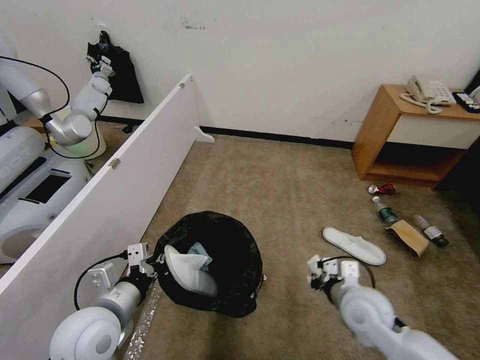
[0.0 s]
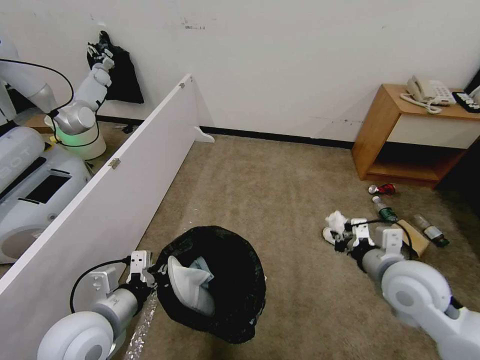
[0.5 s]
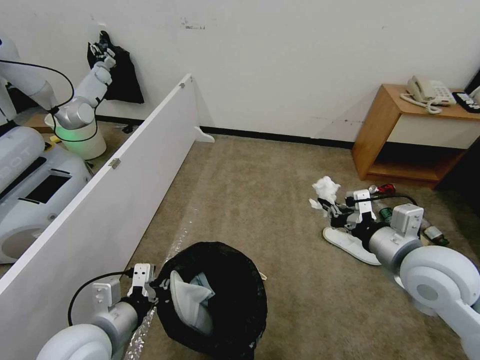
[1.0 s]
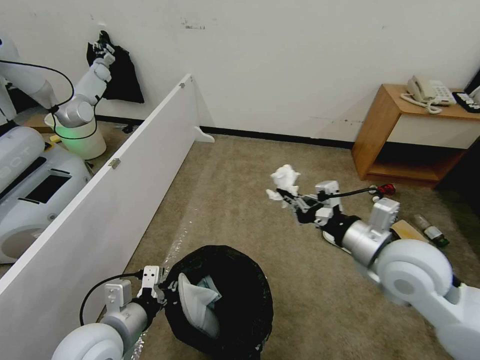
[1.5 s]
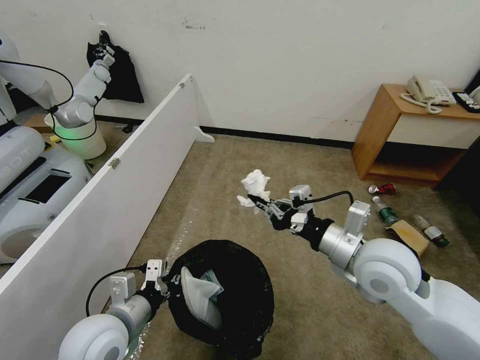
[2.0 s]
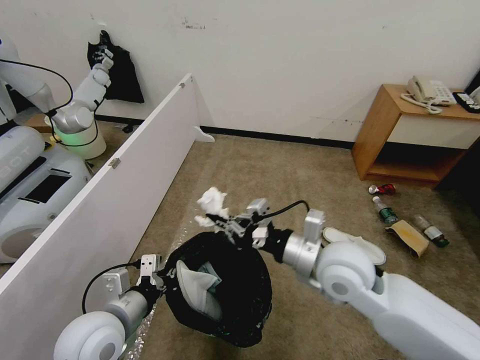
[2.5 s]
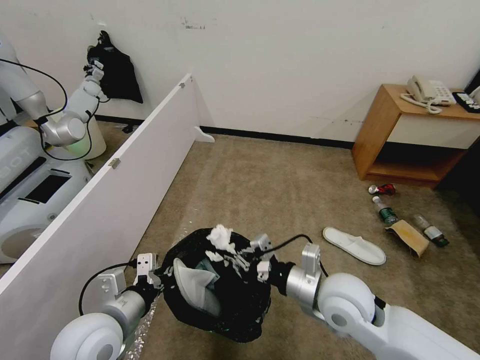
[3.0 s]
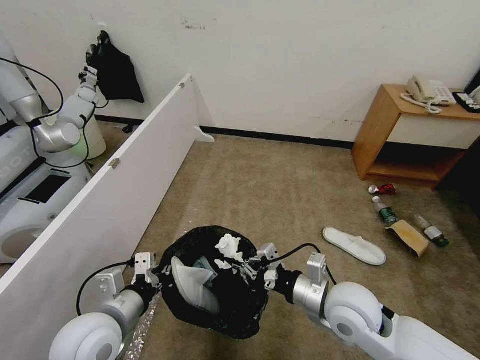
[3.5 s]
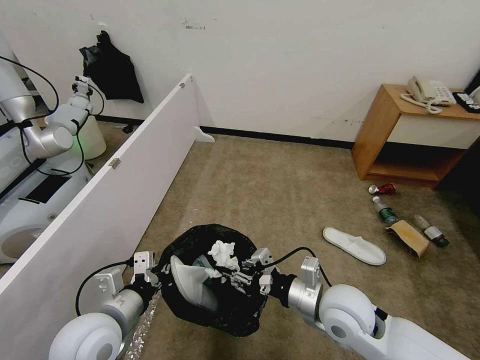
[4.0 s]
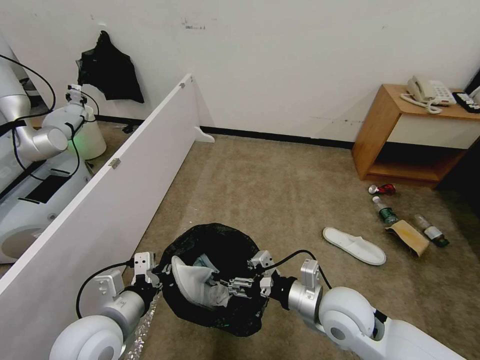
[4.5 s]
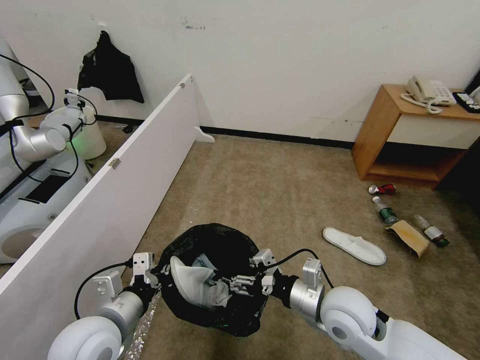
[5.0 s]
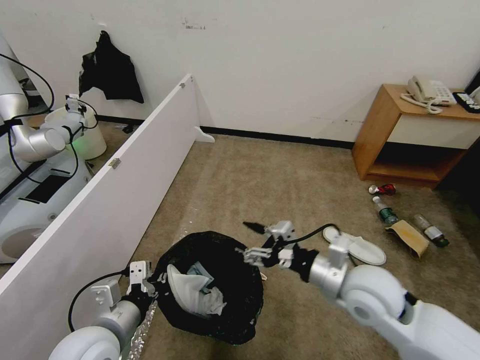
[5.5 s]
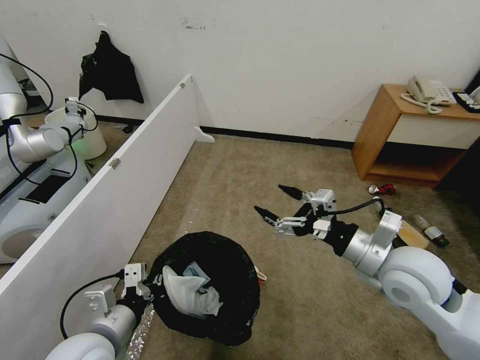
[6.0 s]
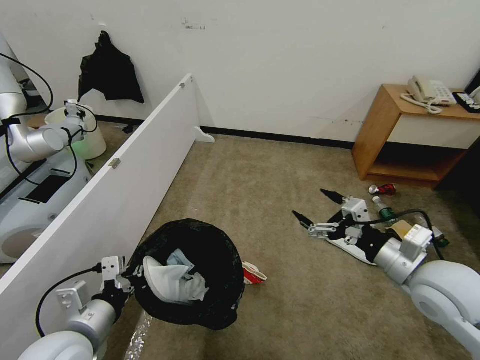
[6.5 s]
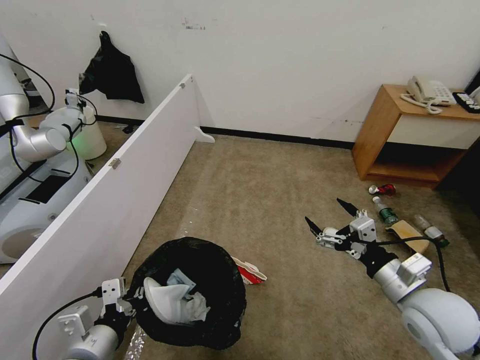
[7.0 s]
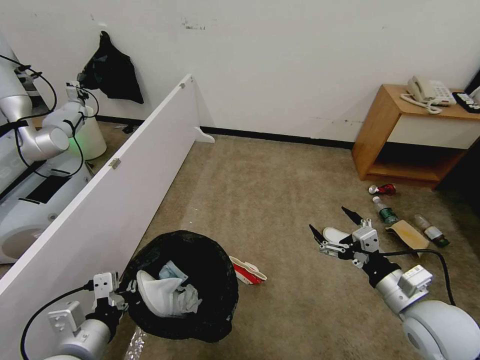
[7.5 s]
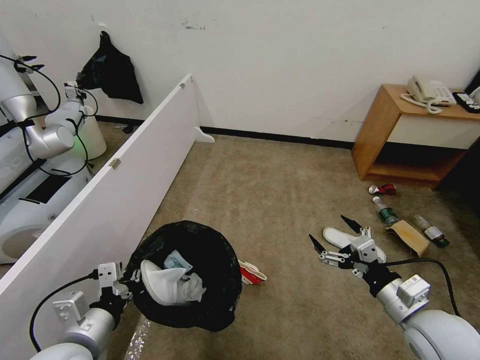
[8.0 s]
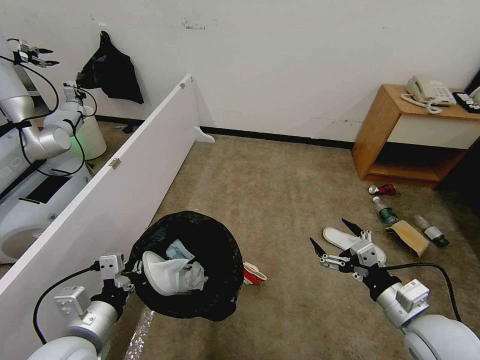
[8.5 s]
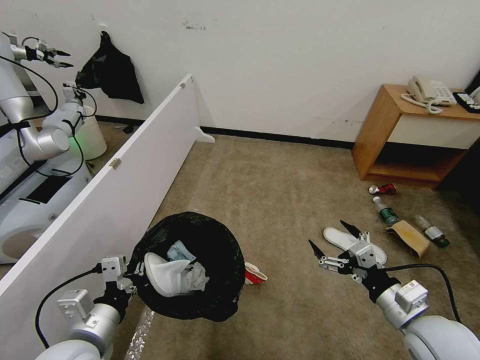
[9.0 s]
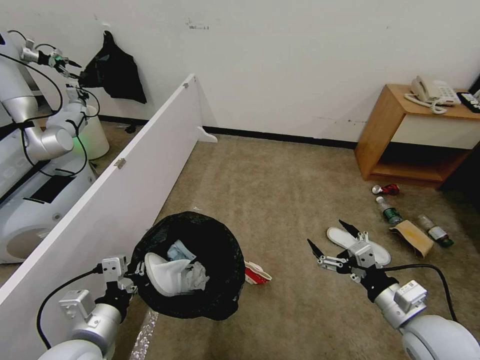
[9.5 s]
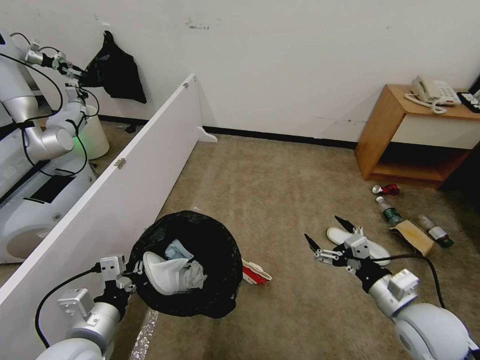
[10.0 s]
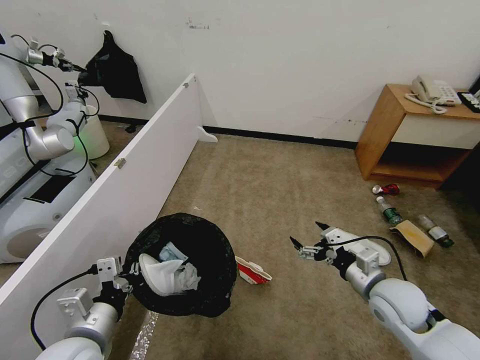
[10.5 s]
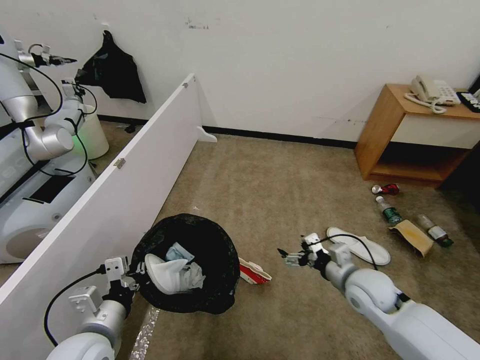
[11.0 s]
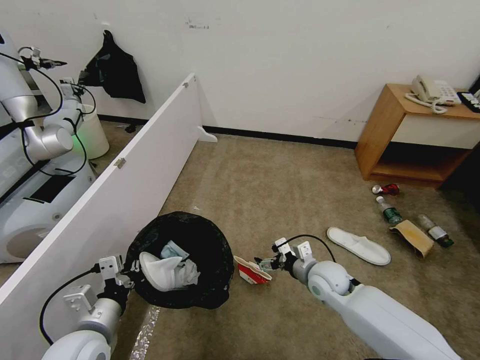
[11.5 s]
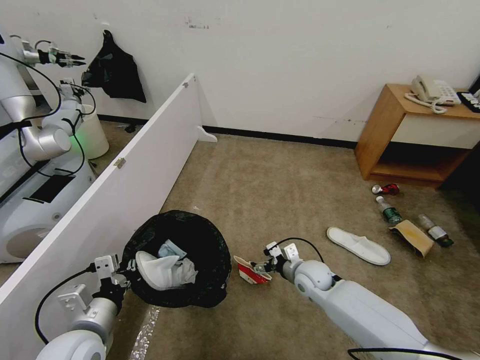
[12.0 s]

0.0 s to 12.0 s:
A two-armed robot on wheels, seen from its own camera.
Task of the whole recording: Pick up the trash bin, then pick up the garbage from the floor and place it into the trash bin.
0.0 to 2.0 s: The right gripper shifts approximately 15 cm upward.
2.0 to 4.0 s: The right gripper moves downward, some 10 cm, and opens up.
4.0 to 6.0 s: The right gripper shifts about 15 cm upward and to the right, and opens up.
6.0 to 8.0 s: The right gripper goes approximately 15 cm downward, backward and to the right.
8.0 to 10.0 s: The grippers make only small movements.
10.0 to 12.0 s: The right gripper shifts roughly 25 cm forward, downward and to the left.

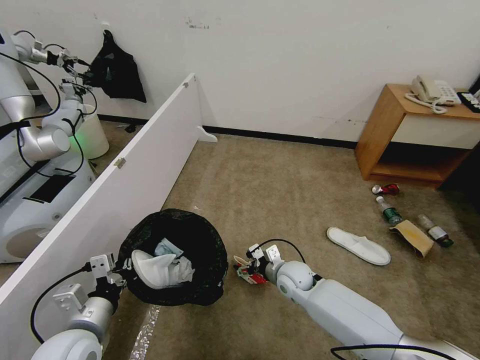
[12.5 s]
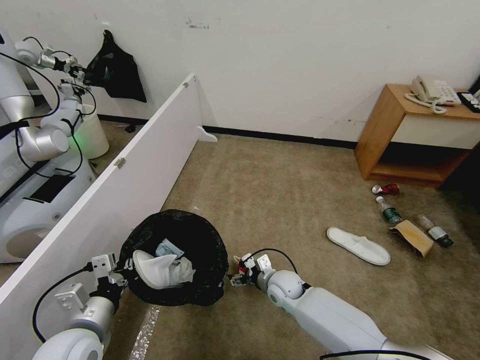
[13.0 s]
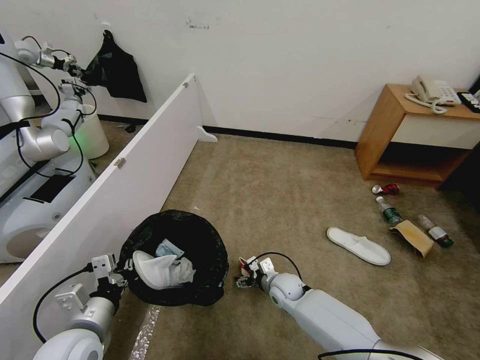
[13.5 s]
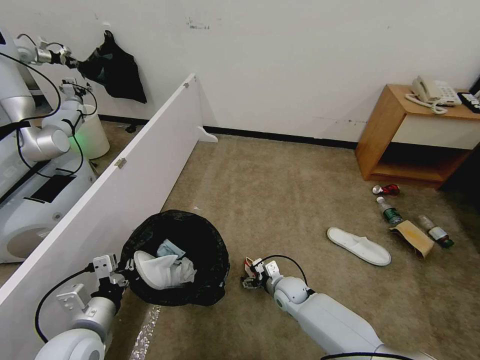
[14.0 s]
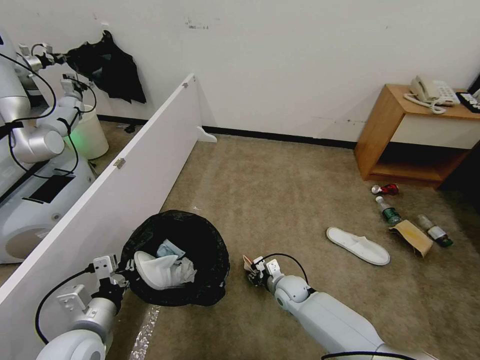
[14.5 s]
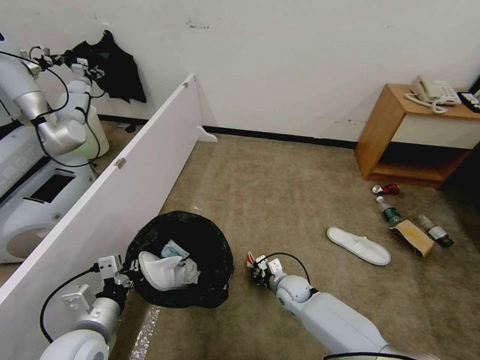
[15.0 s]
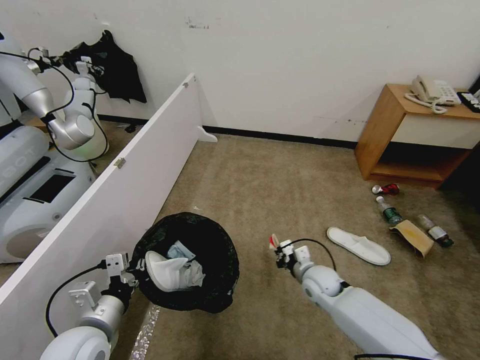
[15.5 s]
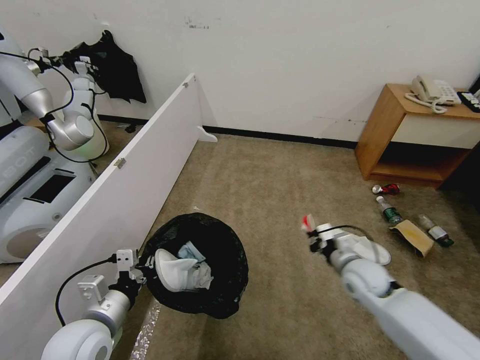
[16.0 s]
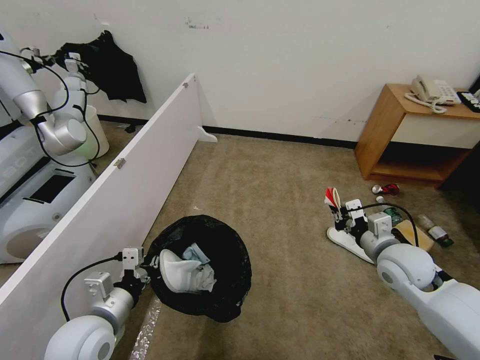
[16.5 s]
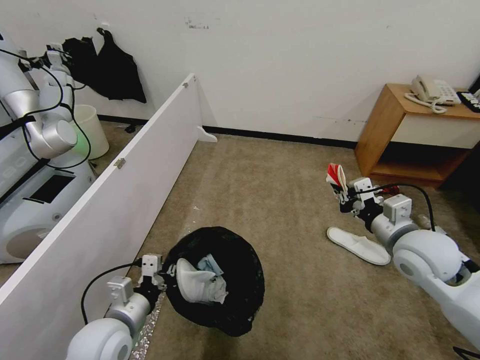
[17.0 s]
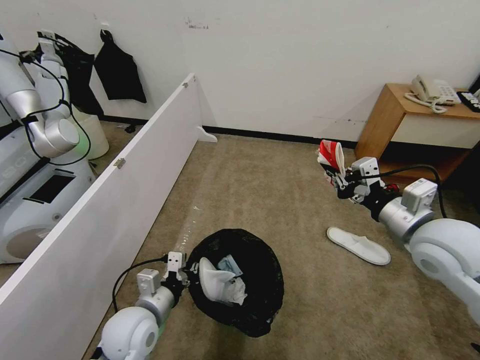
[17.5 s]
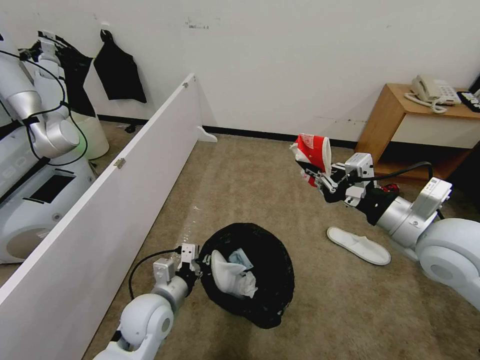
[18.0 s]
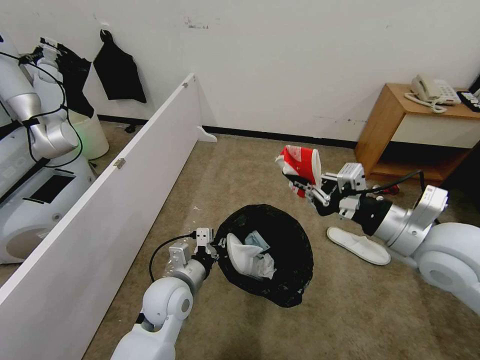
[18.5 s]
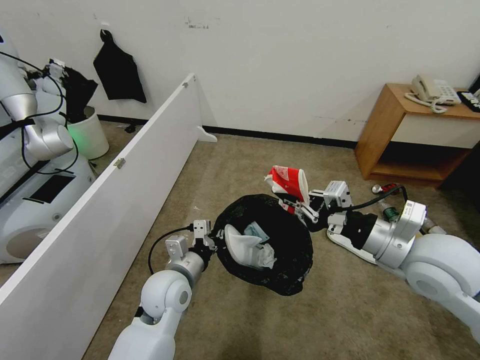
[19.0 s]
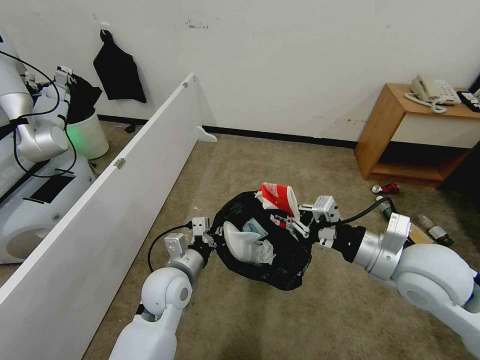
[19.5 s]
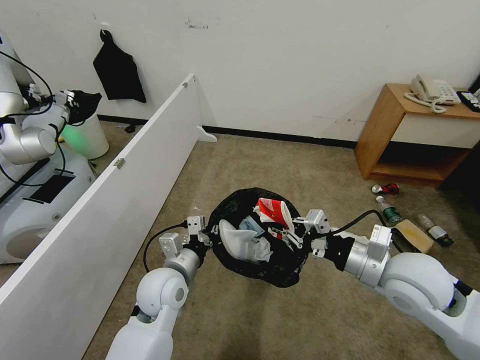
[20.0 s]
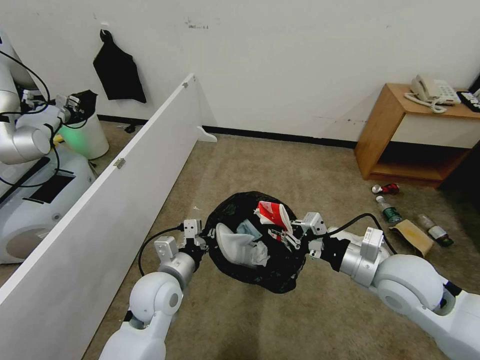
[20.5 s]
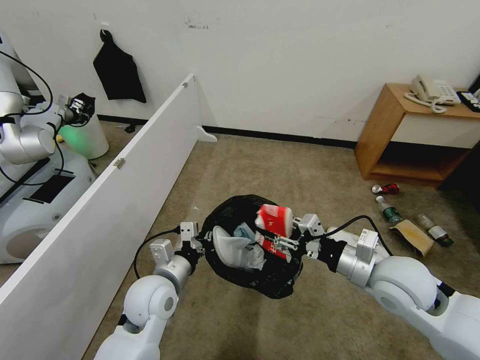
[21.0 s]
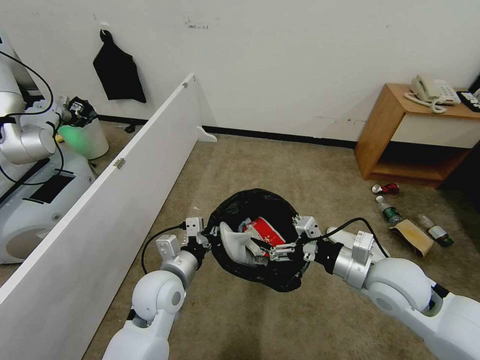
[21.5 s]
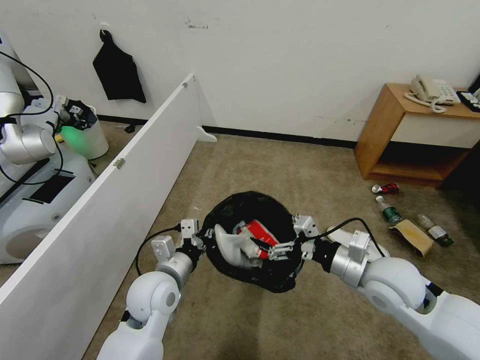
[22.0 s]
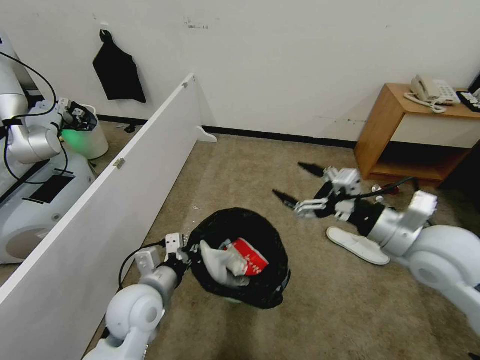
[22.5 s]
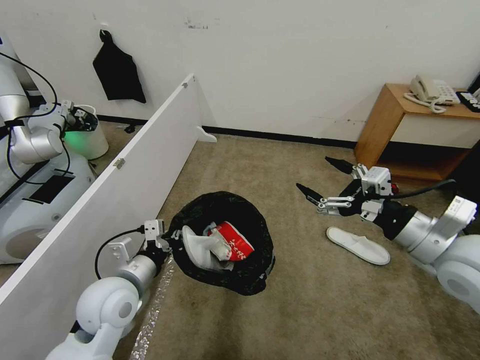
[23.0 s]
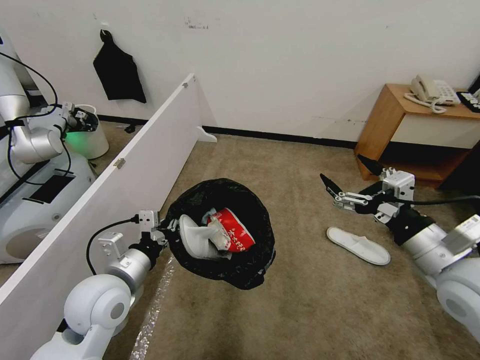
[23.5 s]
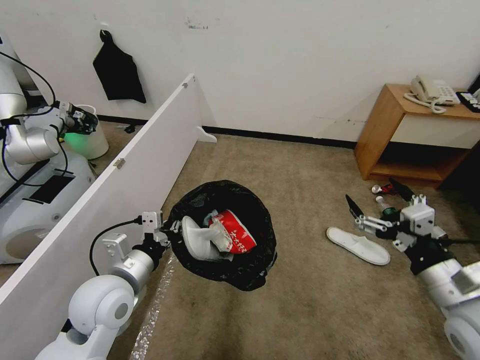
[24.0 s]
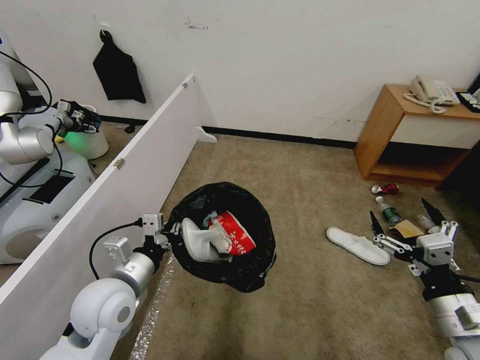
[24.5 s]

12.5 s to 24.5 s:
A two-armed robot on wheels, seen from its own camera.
Task of the whole recording: Pick up the trash bin, then pick up the garbage from the floor and place it into the trash bin.
12.5 to 14.5 s: The right gripper heads downward, covering approximately 10 cm, and closes up.
14.5 to 16.5 s: The right gripper travels upward and to the right by roughly 30 cm.
16.5 to 18.5 s: The left gripper heads to the right and forward, covering some 15 cm, while the right gripper heads upward, covering some 15 cm.
18.5 to 20.5 s: The right gripper is displaced downward by about 10 cm.
20.5 to 22.5 s: The right gripper shifts roughly 5 cm upward, and opens.
22.5 to 24.5 s: The left gripper changes place by approximately 5 cm. Meanwhile the right gripper travels backward and downward by roughly 15 cm.

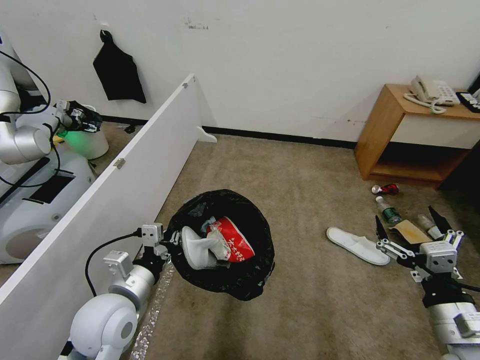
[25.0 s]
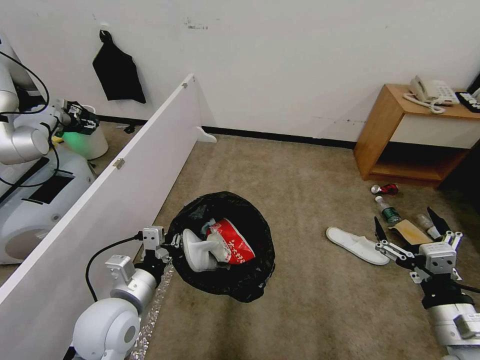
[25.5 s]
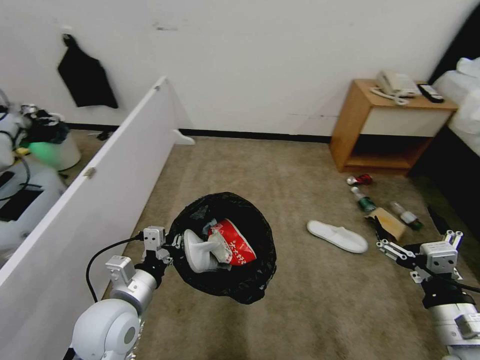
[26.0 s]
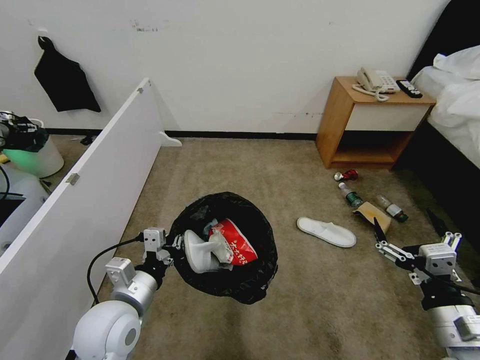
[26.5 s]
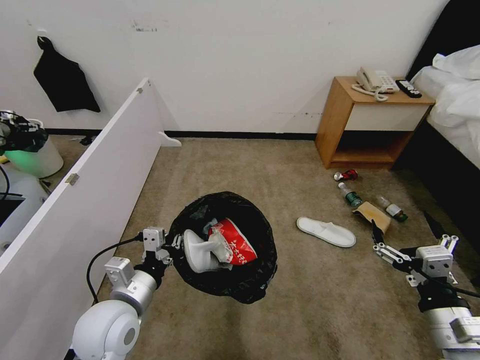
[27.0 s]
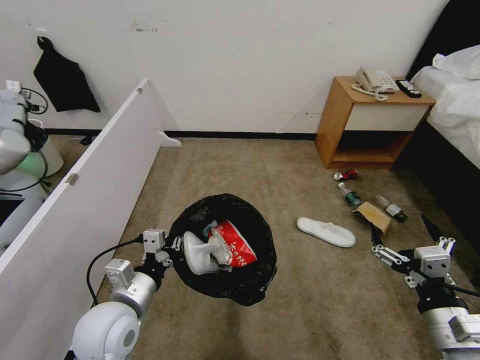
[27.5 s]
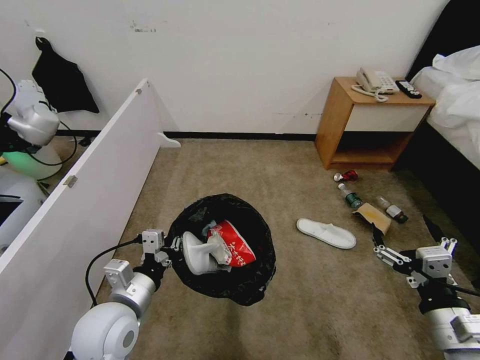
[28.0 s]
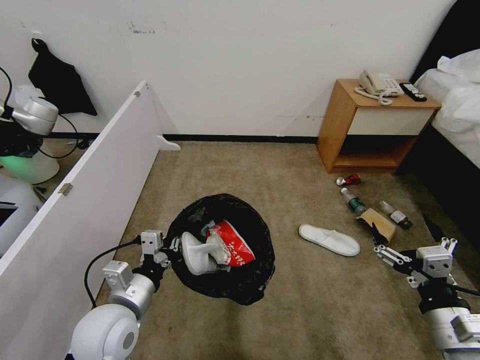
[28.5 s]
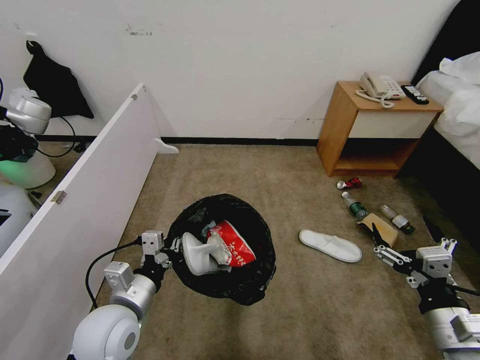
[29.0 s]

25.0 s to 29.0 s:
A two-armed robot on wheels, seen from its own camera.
Task of the whole recording: Pick up the trash bin, then pick up the garbage from the floor and place it into the trash bin.
27.0 to 29.0 s: Neither gripper changes place.
